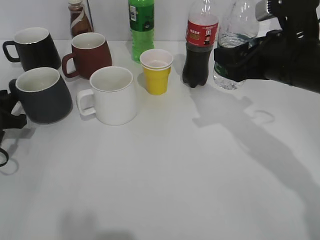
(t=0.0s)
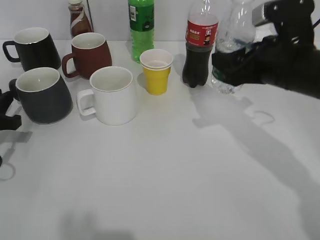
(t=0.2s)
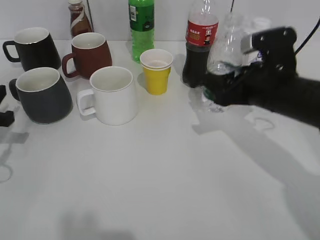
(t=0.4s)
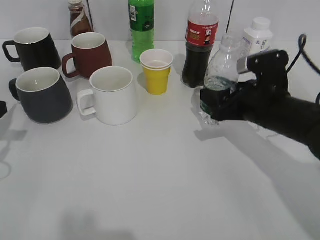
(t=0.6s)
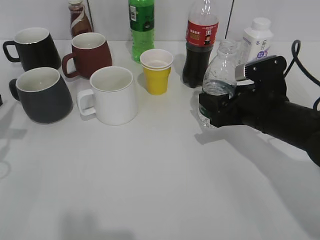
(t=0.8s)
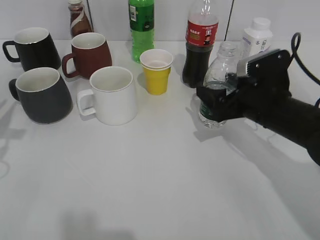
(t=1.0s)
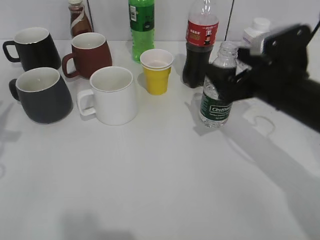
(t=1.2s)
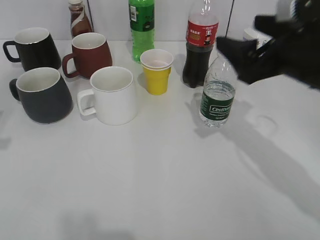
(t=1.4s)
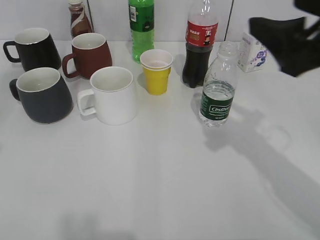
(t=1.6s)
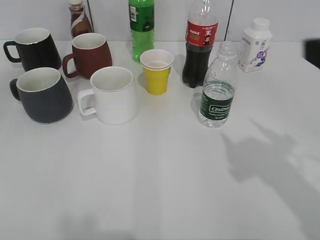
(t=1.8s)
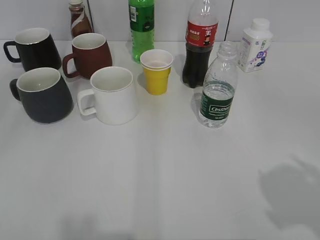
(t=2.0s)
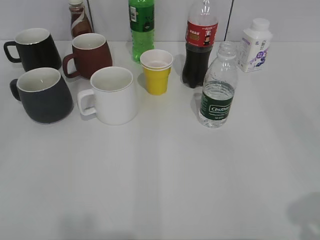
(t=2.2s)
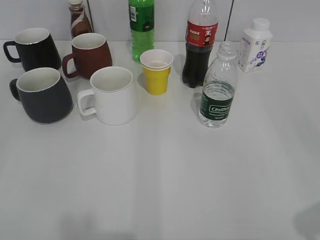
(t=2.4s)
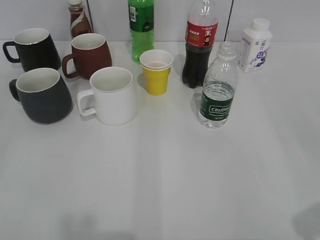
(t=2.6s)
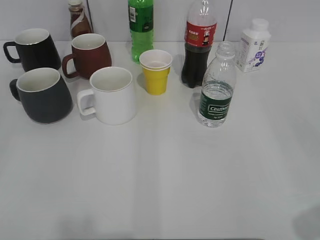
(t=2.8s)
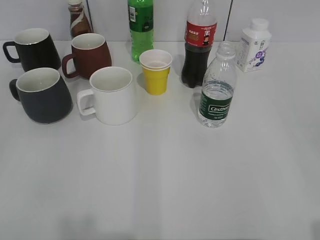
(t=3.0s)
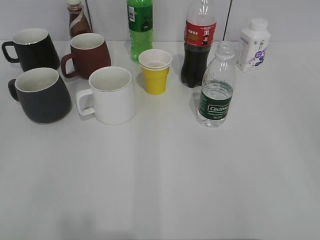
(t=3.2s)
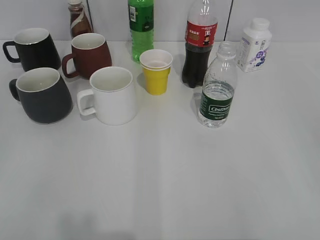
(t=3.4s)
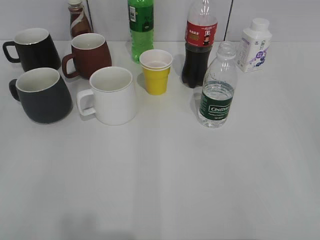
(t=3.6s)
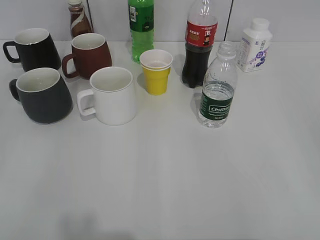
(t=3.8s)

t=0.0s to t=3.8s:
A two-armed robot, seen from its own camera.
Step, t=0.2s to t=1.0s: Place the water bottle on the table with right gripper.
t=0.0s to t=1.2s: The right gripper opens up, while the left gripper travels upward and backward by approximately 10 cm.
t=1.2s to t=2.6s: The right gripper shifts some 30 cm backward and to the right, and closes up; the left gripper is displaced backward by about 20 cm, and opens up.

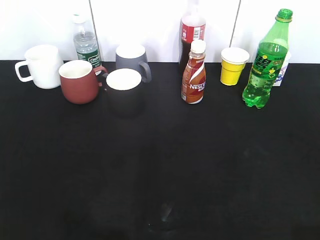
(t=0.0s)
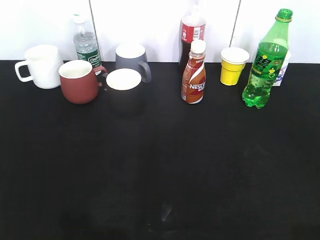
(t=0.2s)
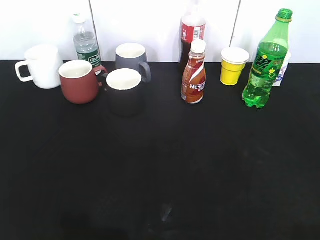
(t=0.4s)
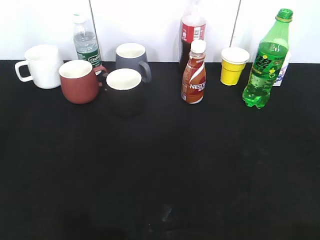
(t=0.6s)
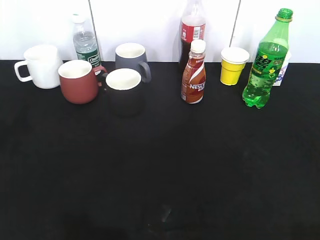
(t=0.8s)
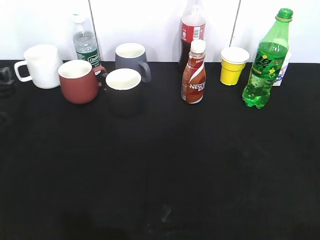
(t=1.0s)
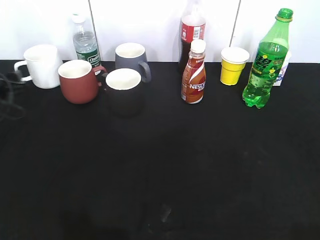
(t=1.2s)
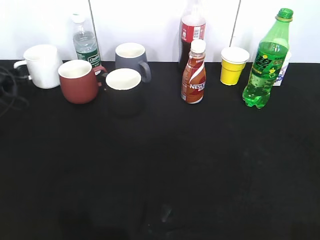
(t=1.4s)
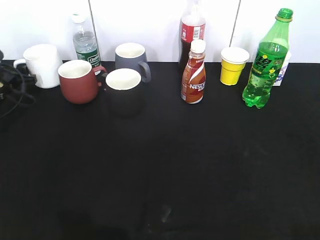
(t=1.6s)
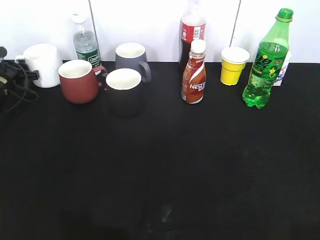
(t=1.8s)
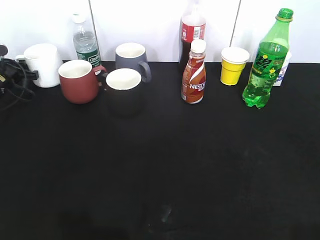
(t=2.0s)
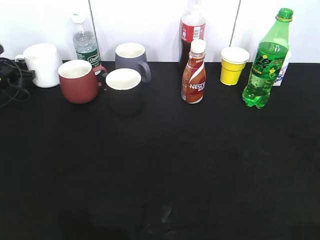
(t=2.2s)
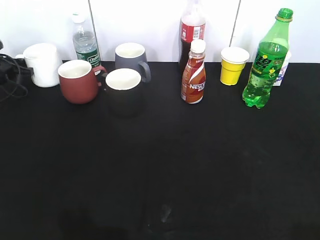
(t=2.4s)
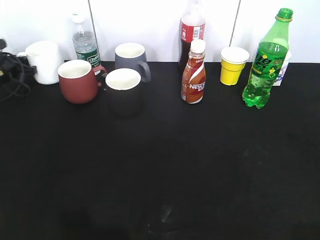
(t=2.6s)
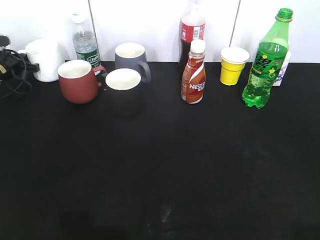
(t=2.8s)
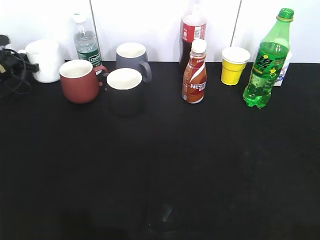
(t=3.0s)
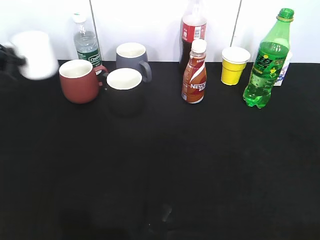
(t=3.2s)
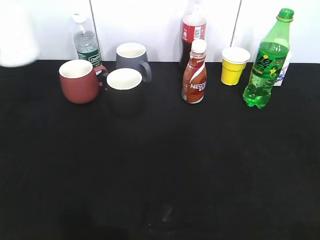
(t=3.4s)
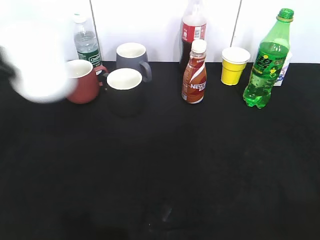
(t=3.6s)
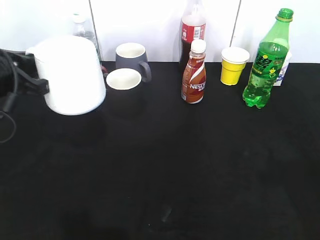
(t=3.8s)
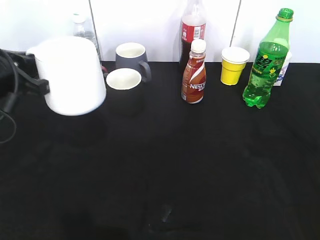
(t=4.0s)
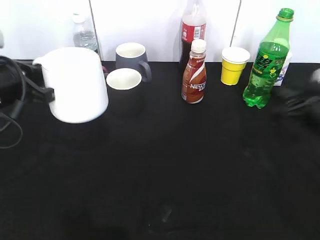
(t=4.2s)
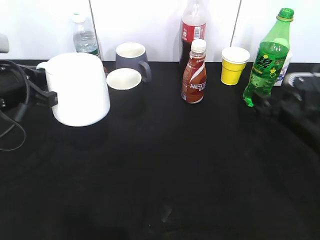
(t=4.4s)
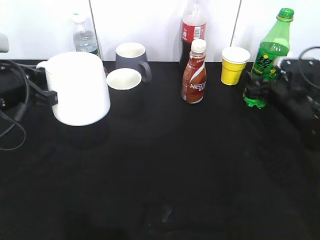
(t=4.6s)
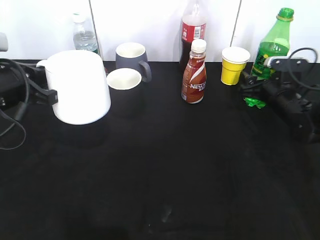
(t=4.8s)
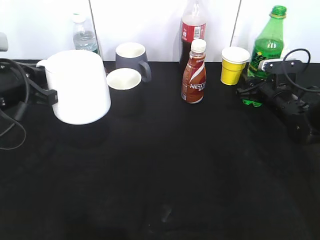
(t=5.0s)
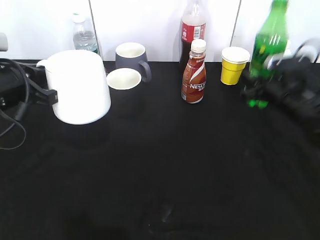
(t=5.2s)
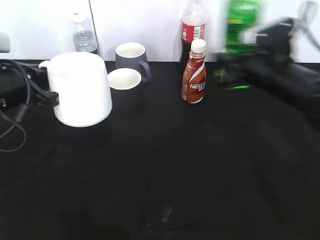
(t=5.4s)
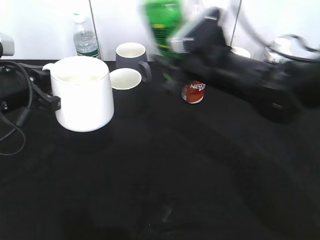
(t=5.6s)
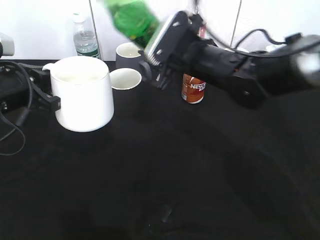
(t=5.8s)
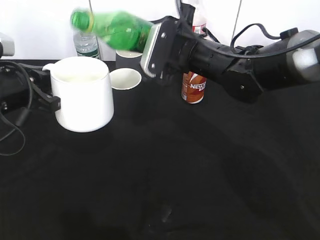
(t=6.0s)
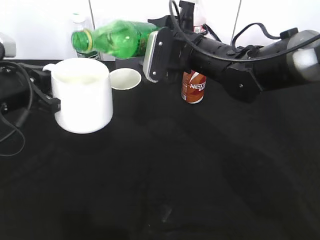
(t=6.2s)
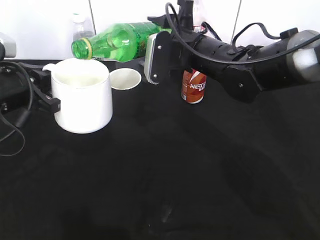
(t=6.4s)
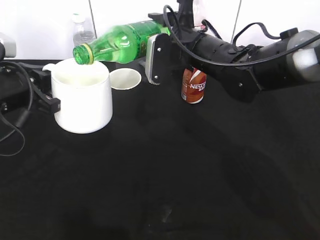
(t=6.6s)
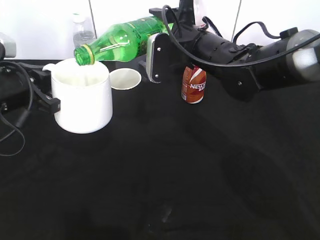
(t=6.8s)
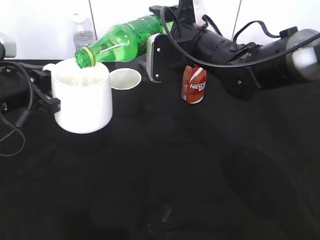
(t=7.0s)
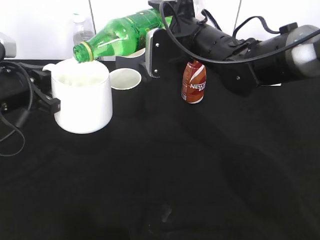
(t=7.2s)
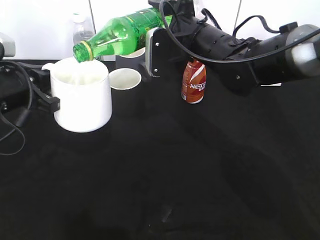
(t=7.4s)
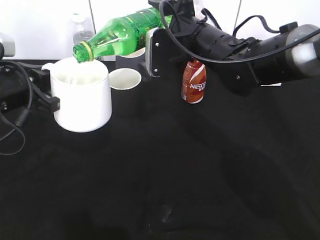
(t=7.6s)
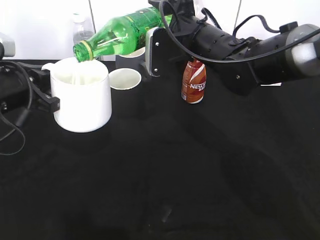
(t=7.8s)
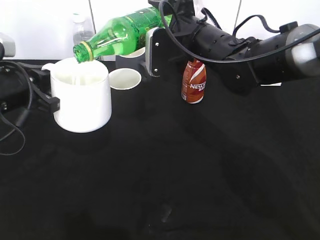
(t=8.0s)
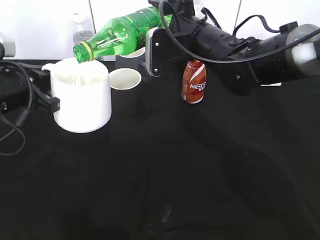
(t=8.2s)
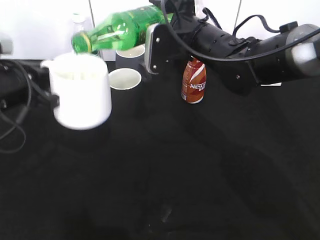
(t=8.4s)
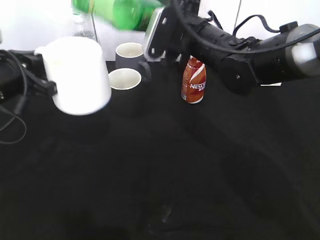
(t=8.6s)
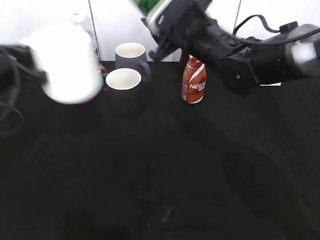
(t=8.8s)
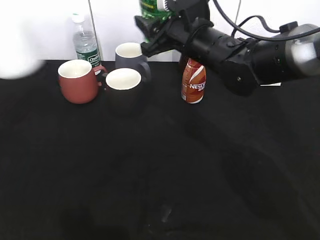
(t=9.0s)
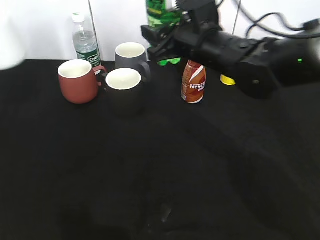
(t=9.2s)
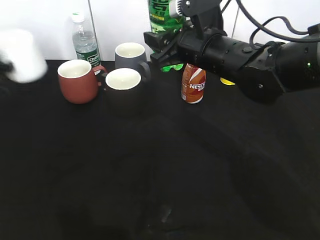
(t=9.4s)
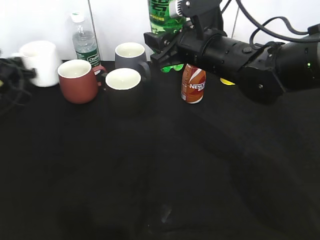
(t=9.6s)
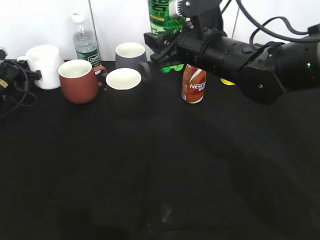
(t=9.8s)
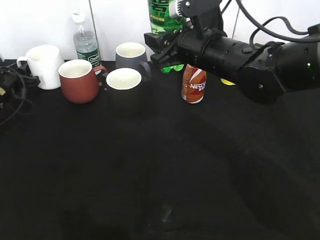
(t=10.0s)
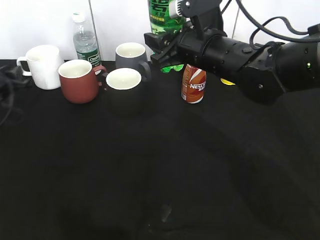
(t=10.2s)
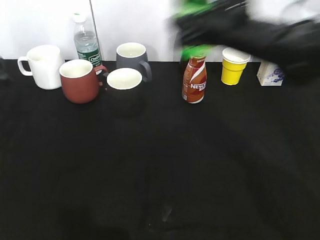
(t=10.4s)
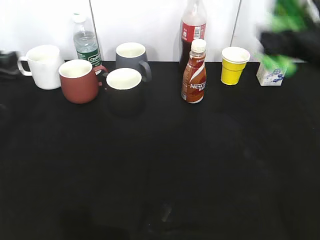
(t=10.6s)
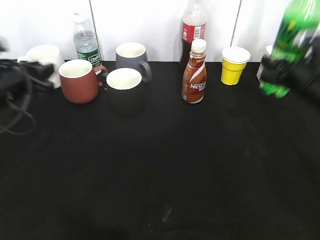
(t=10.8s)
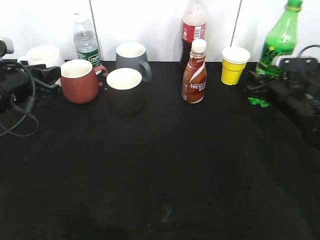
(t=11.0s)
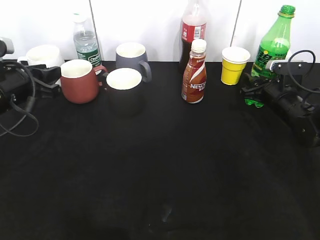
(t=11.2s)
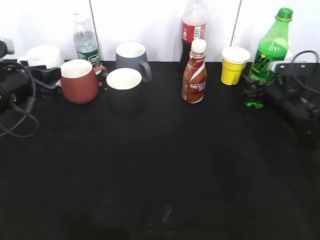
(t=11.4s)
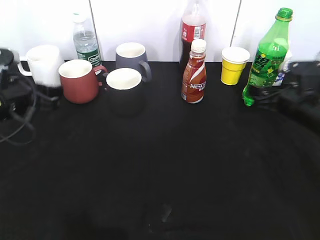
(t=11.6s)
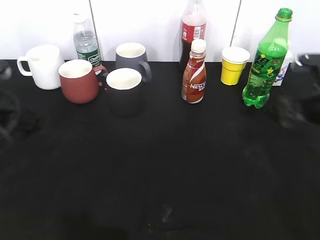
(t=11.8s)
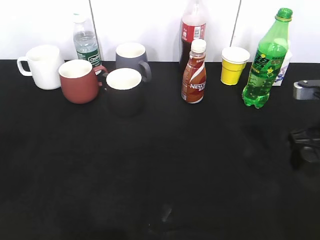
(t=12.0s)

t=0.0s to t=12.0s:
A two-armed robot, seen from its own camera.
Step, t=3.0s to t=3.8s: Lift the white cup with left gripper.
Step, t=4.2s to t=5.0s: Grasp the bottle with sprite with right gripper.
Step, t=5.2s to t=8.4s: Pour the sprite from bottle to cup with right gripper.
Step, t=8.8s to t=10.0s: Place the white cup on the table with left gripper.
Step, t=10.4s to t=11.6s: Place the sprite bottle on the table with right gripper.
t=0.0s to t=1.6s: The left gripper shifts approximately 50 cm forward and downward.
t=1.6s to t=3.0s: The left gripper shifts roughly 5 cm forward, and closes.
t=3.0s to t=4.4s: The left gripper heads backward, to the right and upward, covering approximately 30 cm, while the right gripper shifts about 40 cm forward and downward, and opens up.
t=4.4s to t=6.0s: The right gripper goes some 25 cm to the left and upward, and closes up.
t=7.6s to t=9.0s: The left gripper moves to the left, roughly 10 cm.
t=9.0s to t=10.4s: The left gripper shifts approximately 5 cm downward, moves roughly 20 cm forward and comes back, and opens, while the right gripper heads to the right, covering approximately 5 cm.
t=10.4s to t=12.0s: The right gripper is displaced to the right, backward and downward by roughly 15 cm, and opens its fingers, while the left gripper heads backward, upward and to the right, covering some 15 cm.

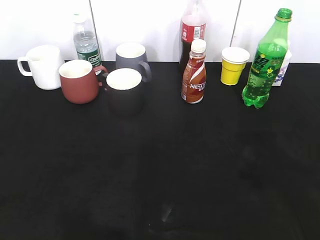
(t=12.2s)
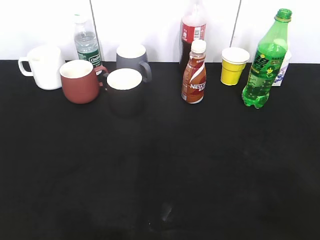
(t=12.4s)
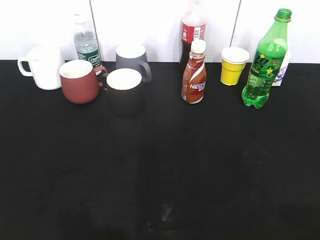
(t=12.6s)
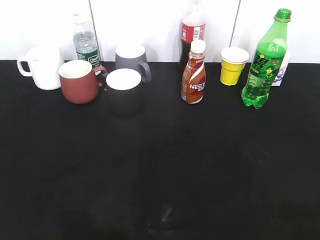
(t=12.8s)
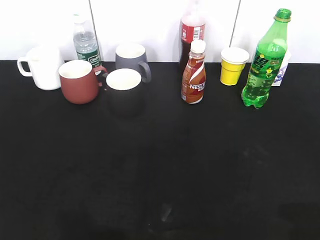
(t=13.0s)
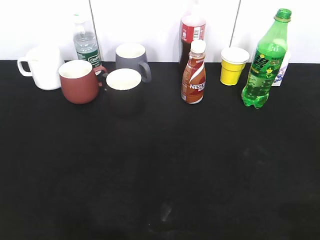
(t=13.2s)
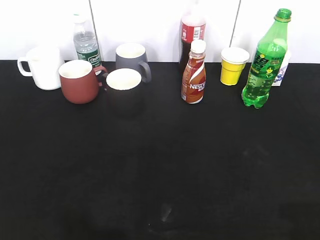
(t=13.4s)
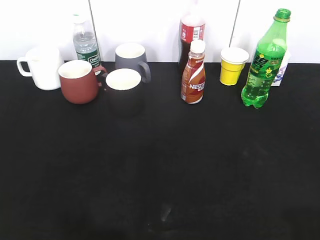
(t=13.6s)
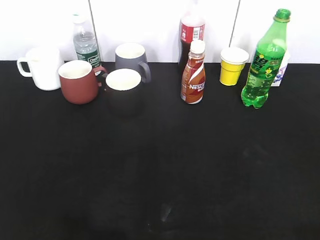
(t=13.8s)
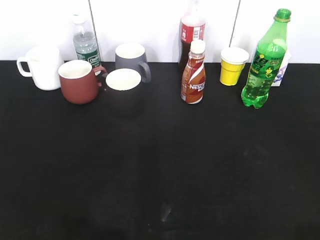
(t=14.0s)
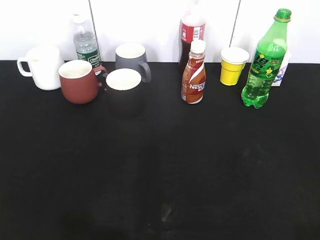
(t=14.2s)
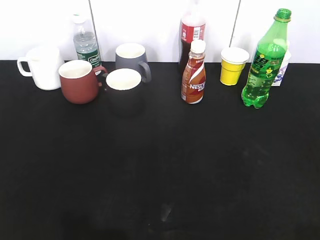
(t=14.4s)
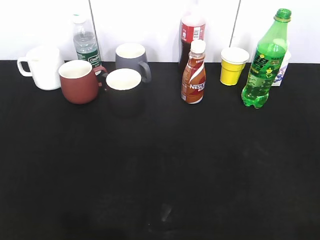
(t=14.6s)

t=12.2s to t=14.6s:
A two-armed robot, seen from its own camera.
t=12.2s to t=13.4s: The right gripper is displaced backward by about 15 cm.

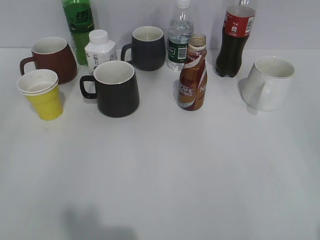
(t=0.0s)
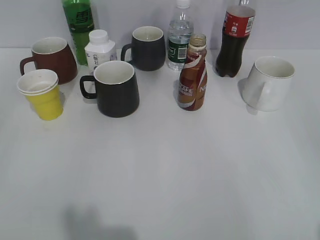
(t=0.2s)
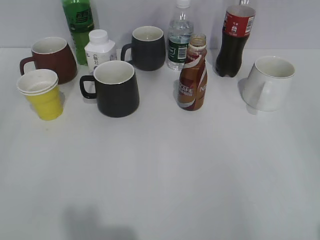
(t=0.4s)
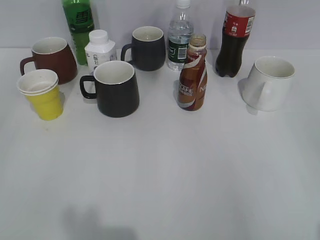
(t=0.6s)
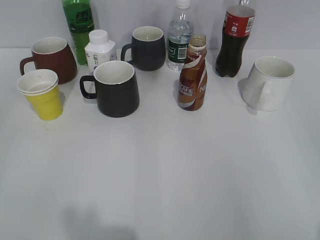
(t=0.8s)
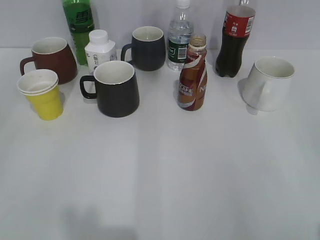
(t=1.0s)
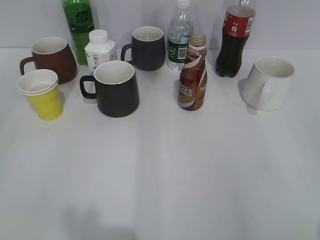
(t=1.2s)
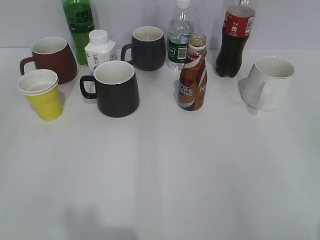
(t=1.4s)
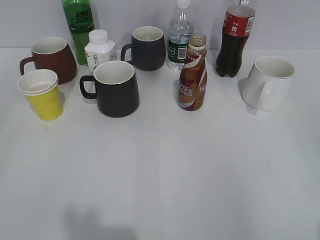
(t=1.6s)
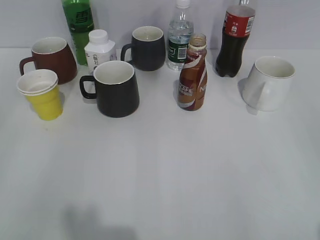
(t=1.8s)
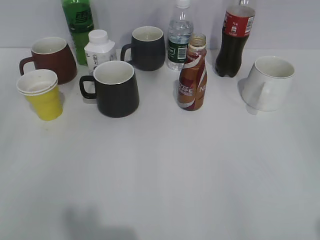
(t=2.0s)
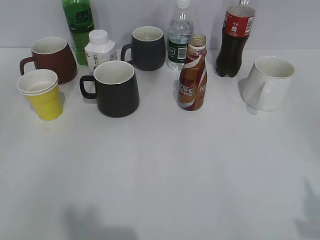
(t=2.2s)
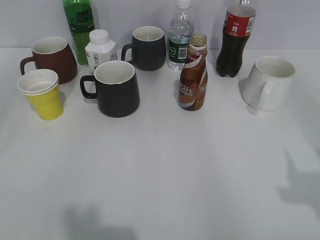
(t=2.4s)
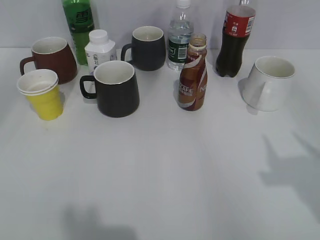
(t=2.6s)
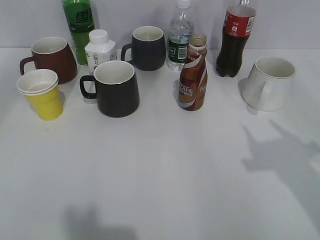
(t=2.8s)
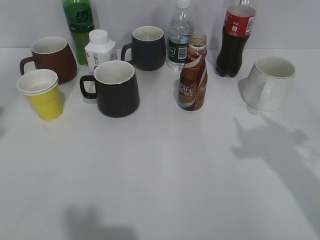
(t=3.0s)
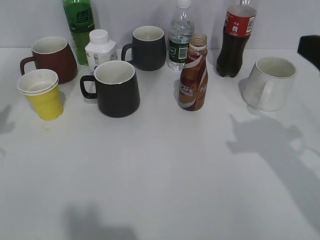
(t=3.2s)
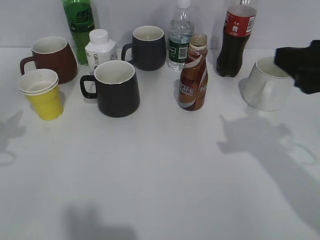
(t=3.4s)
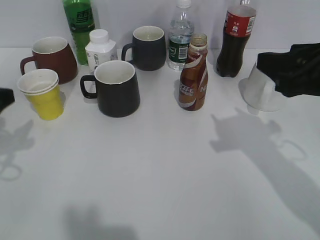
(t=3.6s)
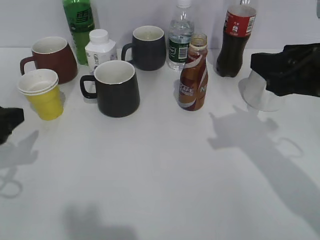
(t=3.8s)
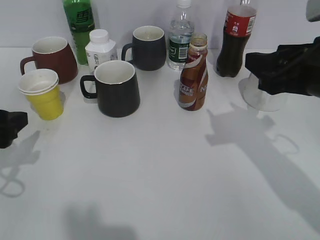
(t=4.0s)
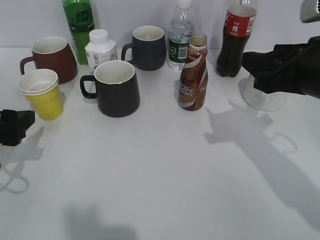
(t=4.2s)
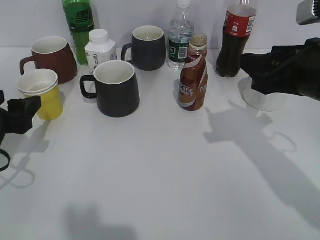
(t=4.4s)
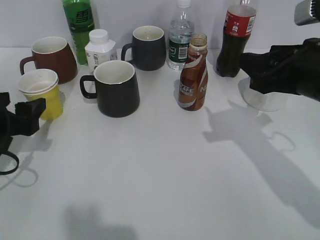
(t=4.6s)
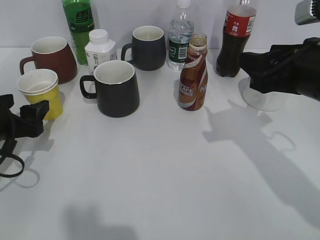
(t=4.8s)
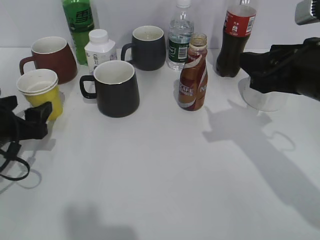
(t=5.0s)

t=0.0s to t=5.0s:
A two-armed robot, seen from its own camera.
t=1.6s to t=3.4s: Both grippers move forward, about 20 cm.
t=3.4s to t=5.0s: The right gripper changes place by approximately 5 cm. Meanwhile the left gripper is displaced downward by approximately 10 cm.
